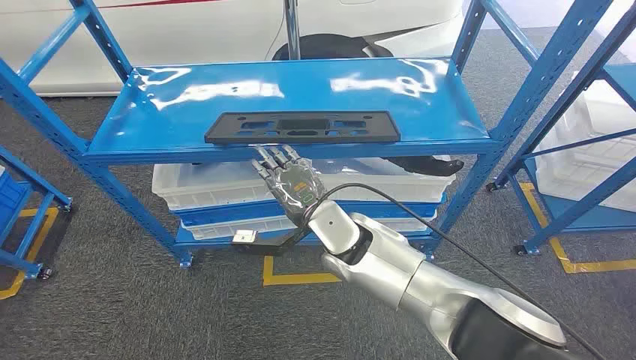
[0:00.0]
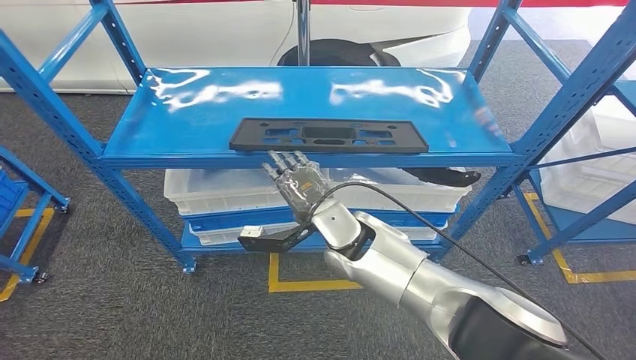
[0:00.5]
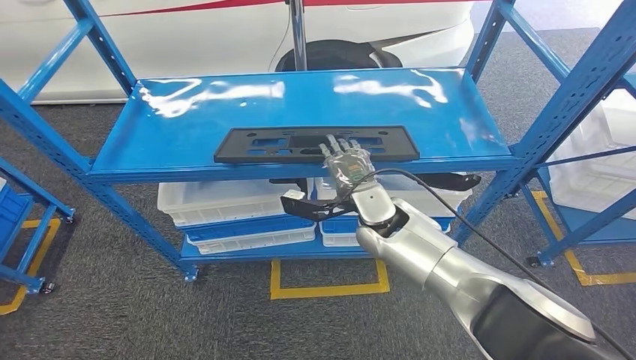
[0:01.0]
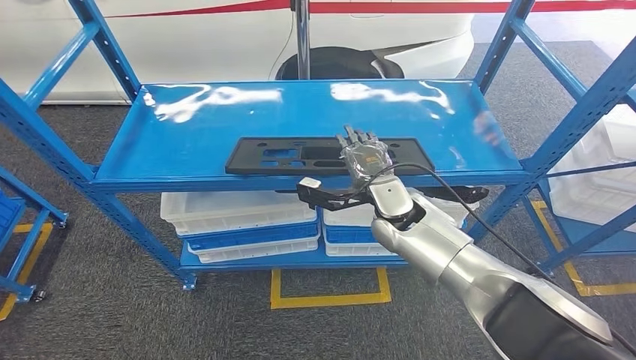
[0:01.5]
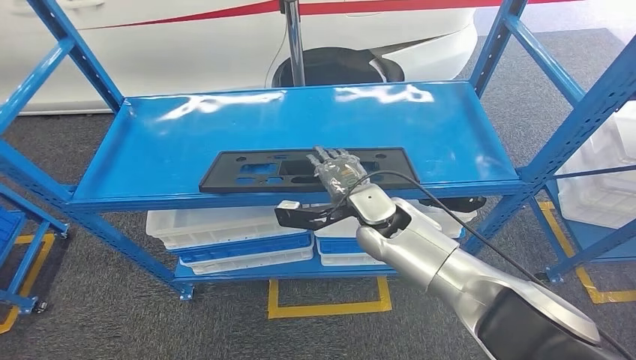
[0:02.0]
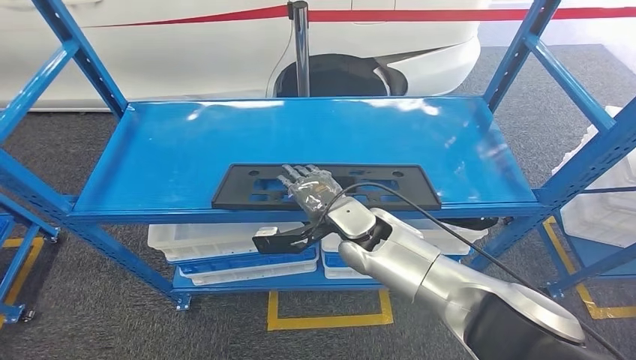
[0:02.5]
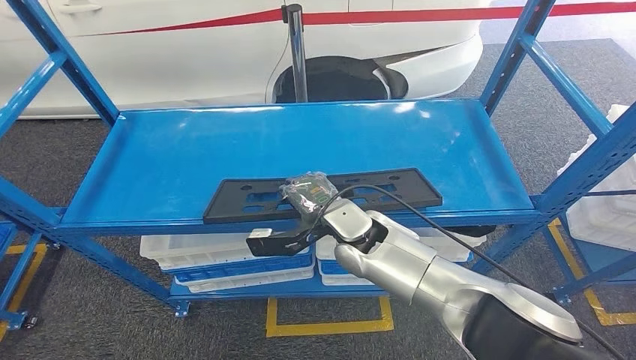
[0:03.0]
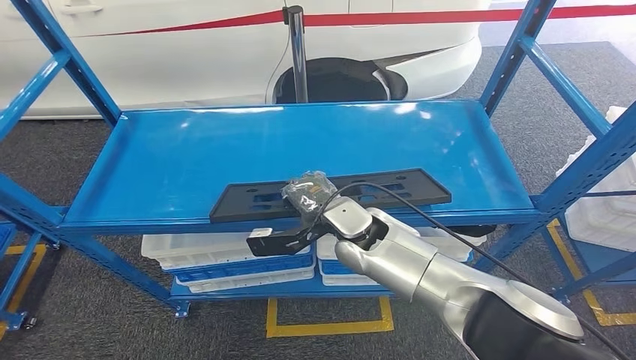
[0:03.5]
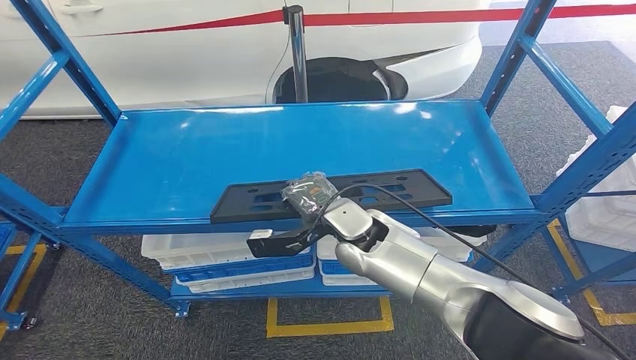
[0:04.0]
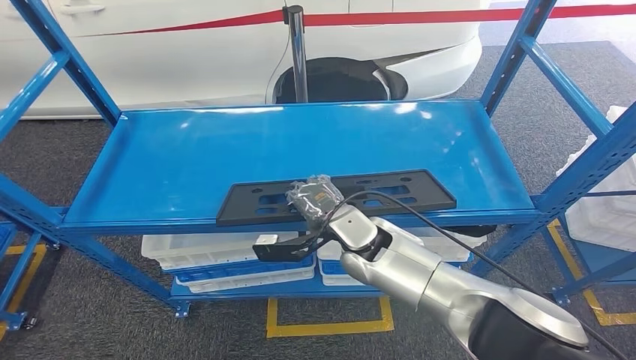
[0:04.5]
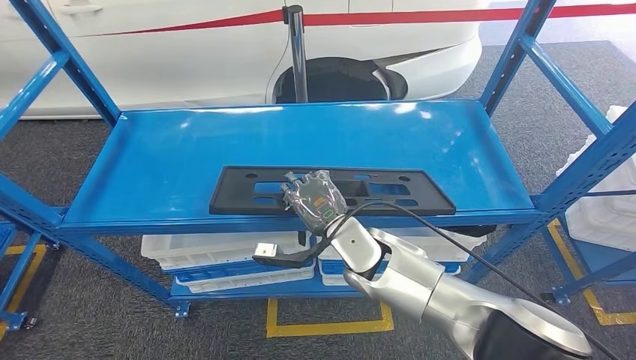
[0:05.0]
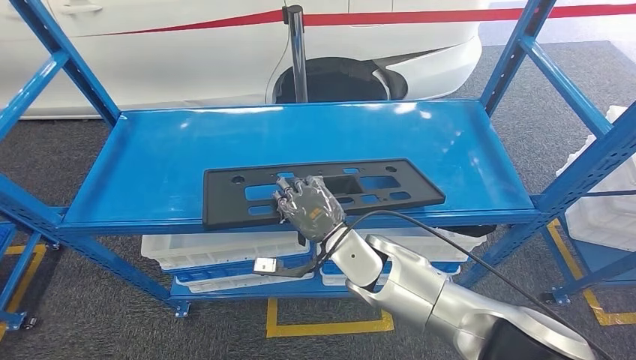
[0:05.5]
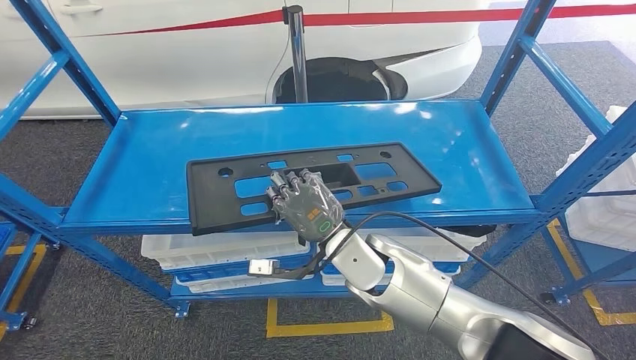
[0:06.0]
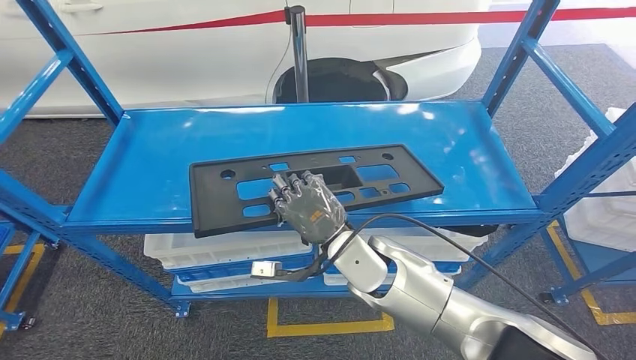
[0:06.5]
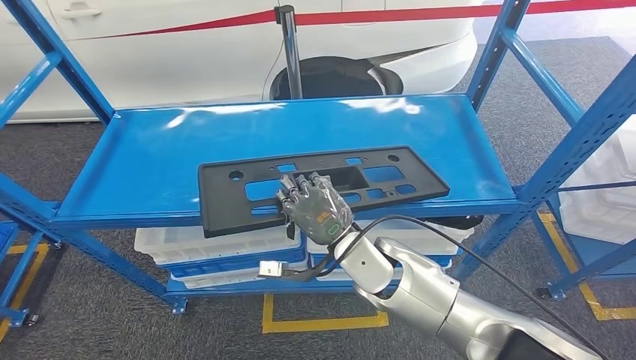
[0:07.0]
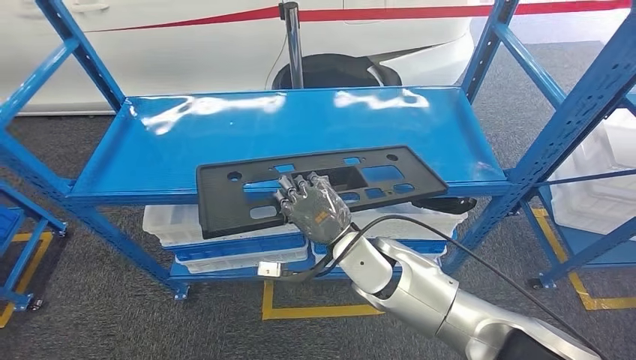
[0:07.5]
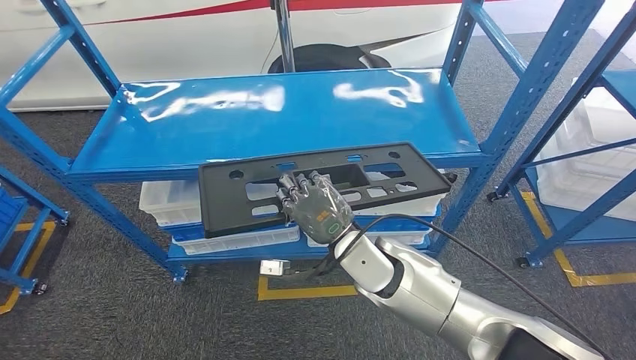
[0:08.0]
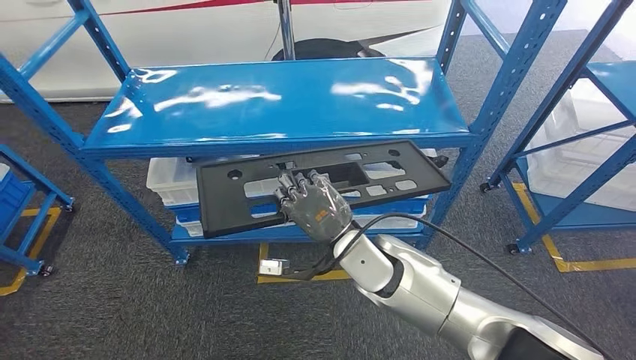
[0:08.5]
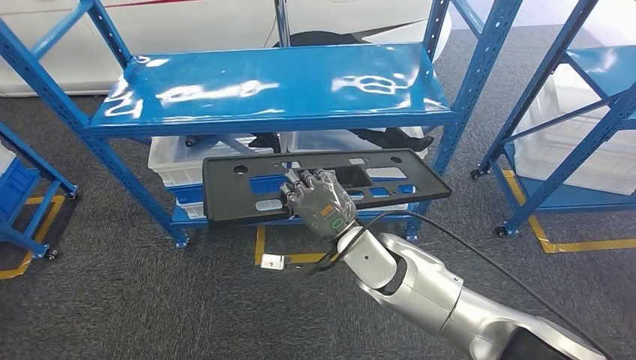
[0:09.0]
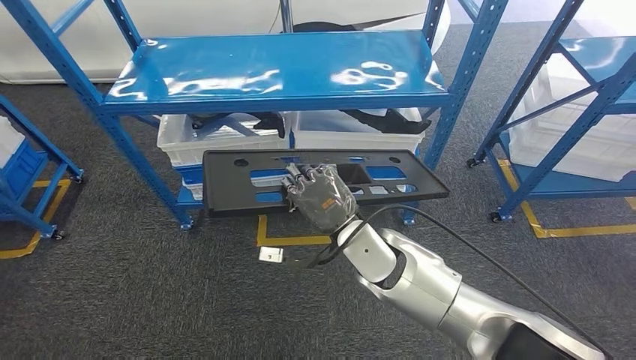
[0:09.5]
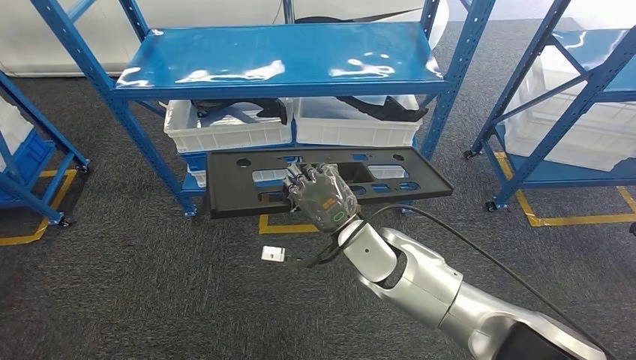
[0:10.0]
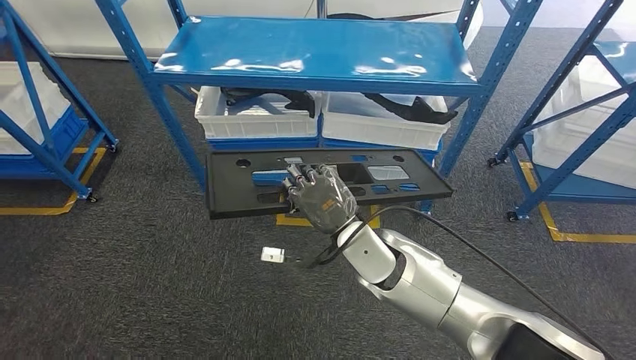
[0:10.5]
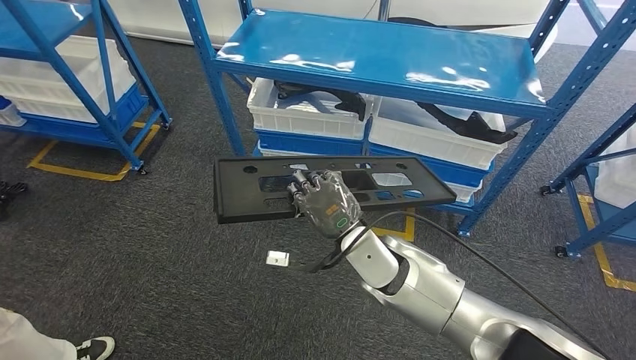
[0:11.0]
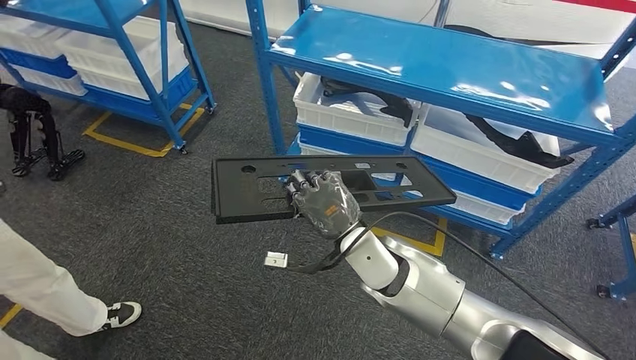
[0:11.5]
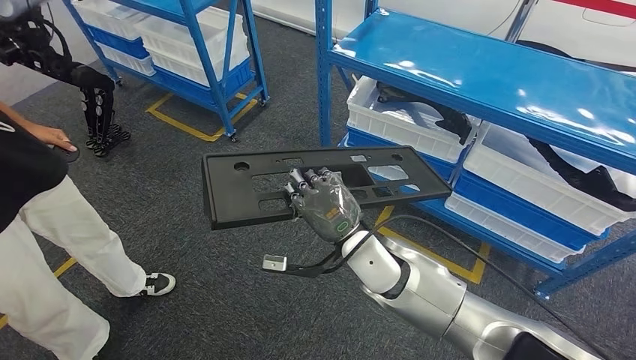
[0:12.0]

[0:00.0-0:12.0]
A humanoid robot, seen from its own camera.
Step, 0:00.0 to 0:06.5: Pick up the large parts from the shelf.

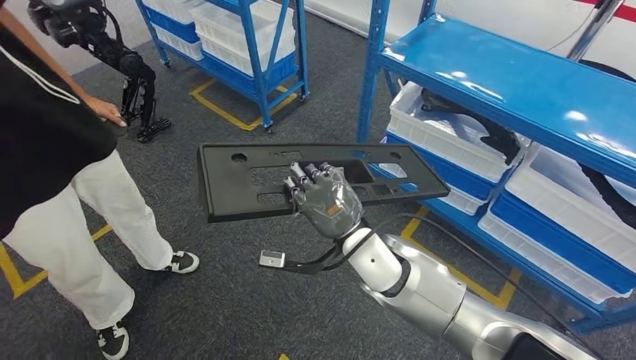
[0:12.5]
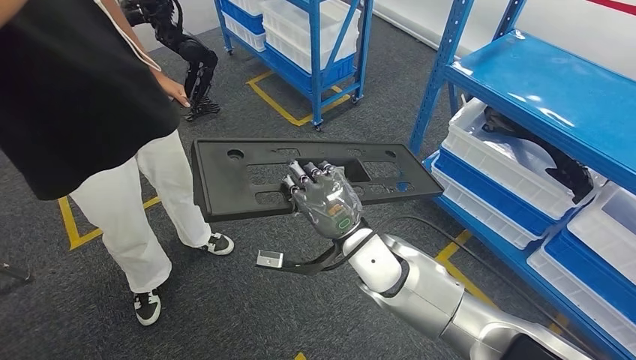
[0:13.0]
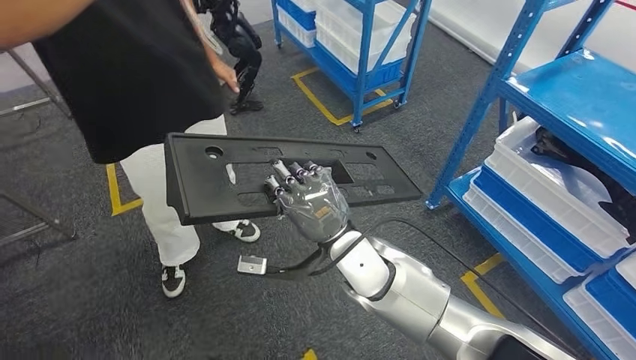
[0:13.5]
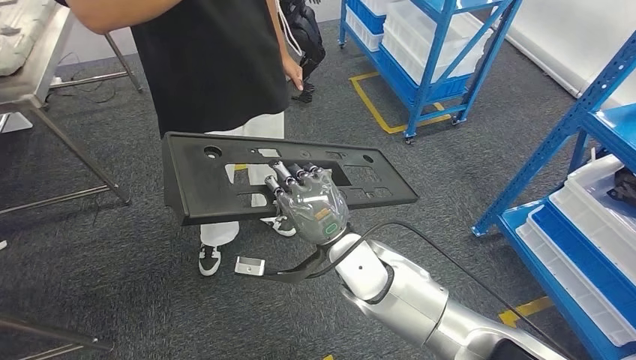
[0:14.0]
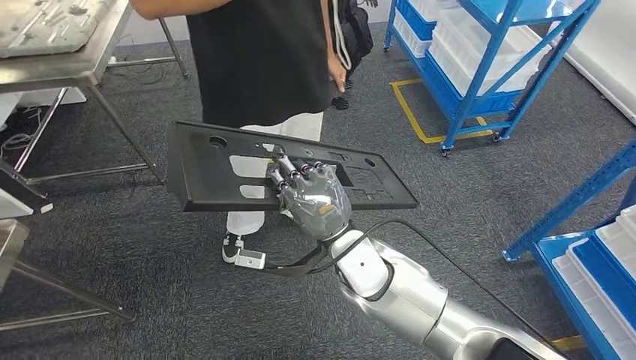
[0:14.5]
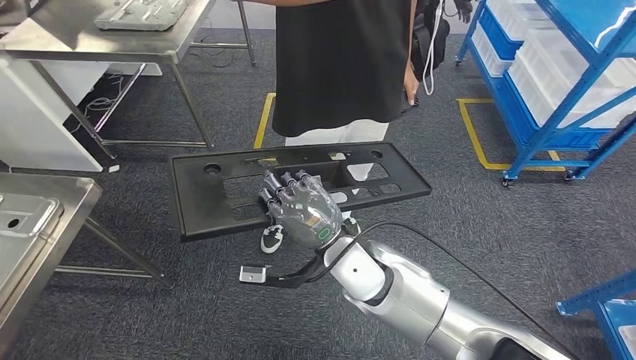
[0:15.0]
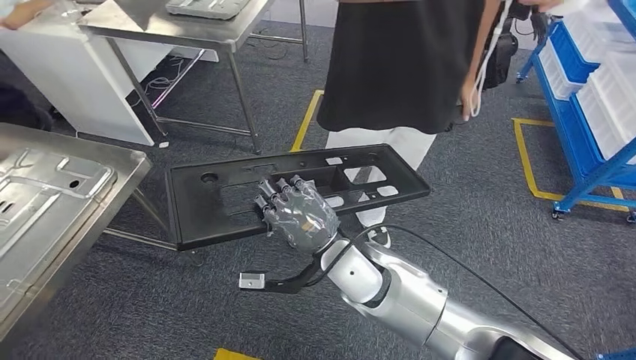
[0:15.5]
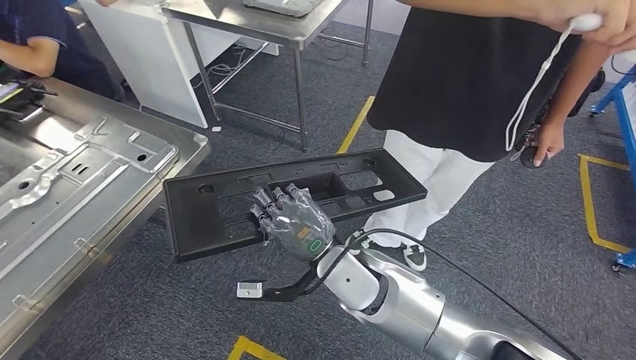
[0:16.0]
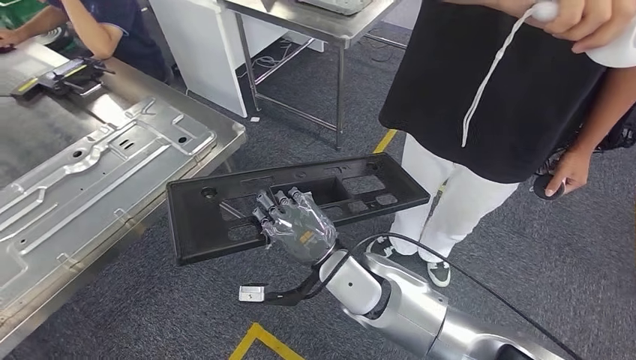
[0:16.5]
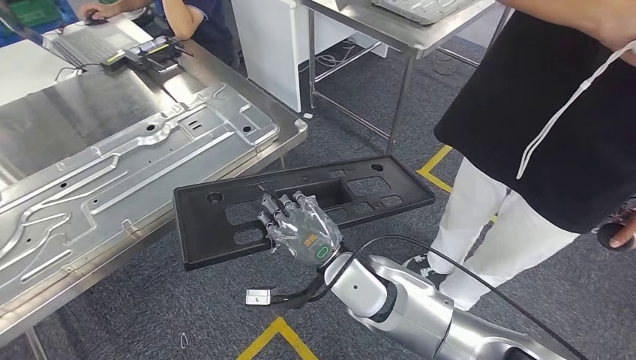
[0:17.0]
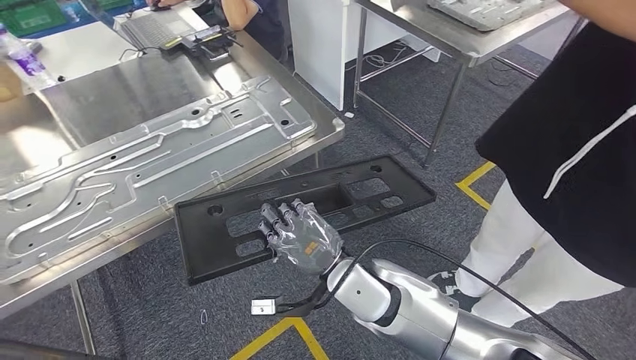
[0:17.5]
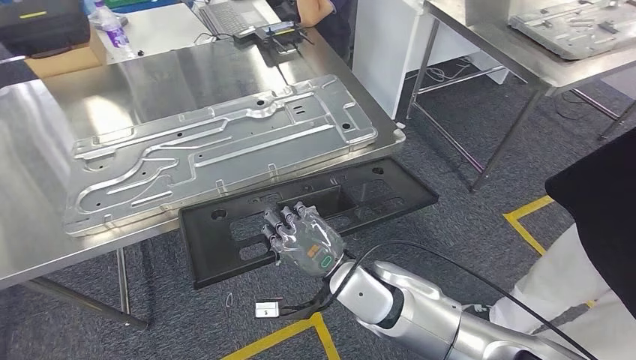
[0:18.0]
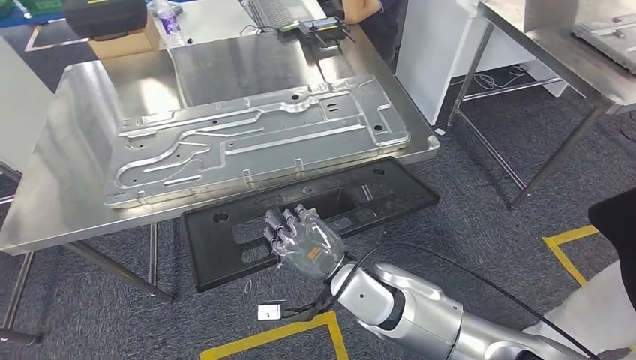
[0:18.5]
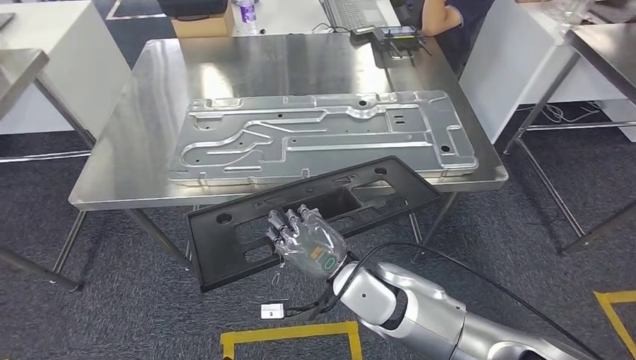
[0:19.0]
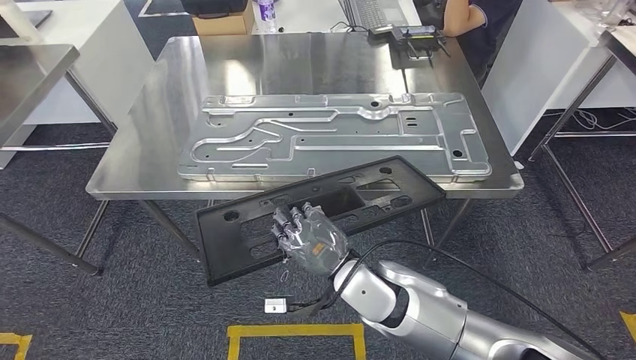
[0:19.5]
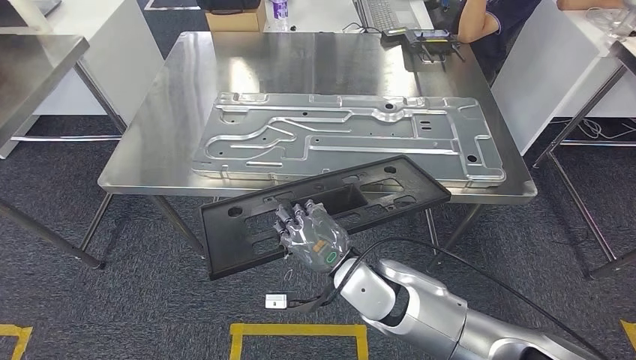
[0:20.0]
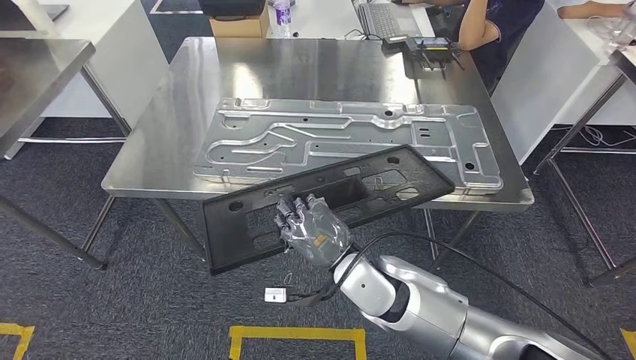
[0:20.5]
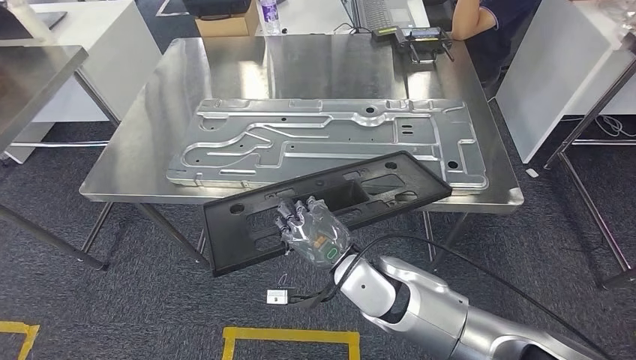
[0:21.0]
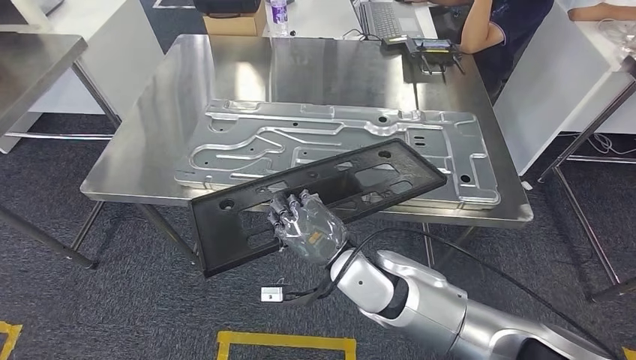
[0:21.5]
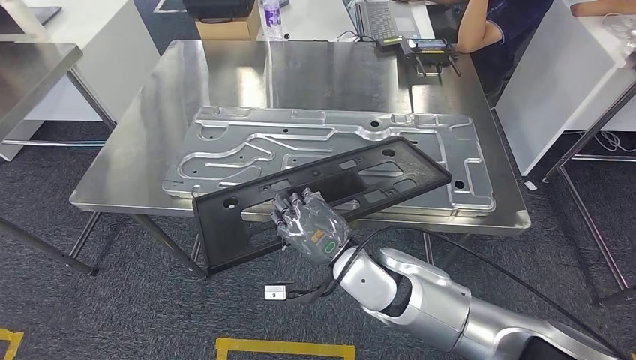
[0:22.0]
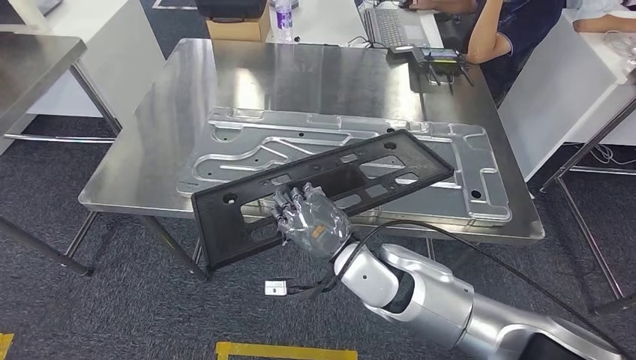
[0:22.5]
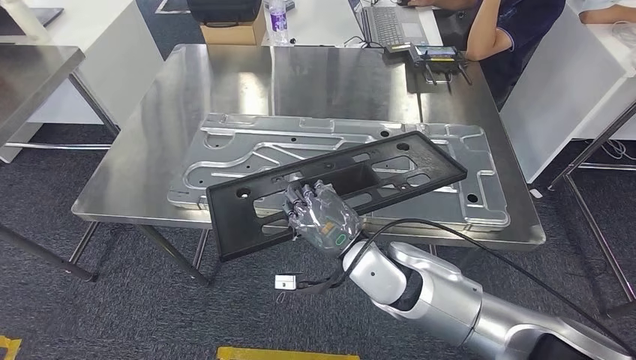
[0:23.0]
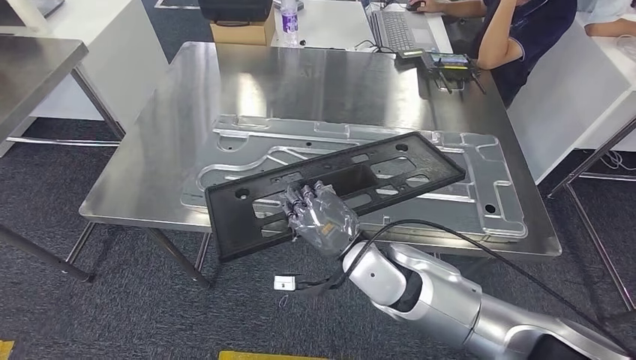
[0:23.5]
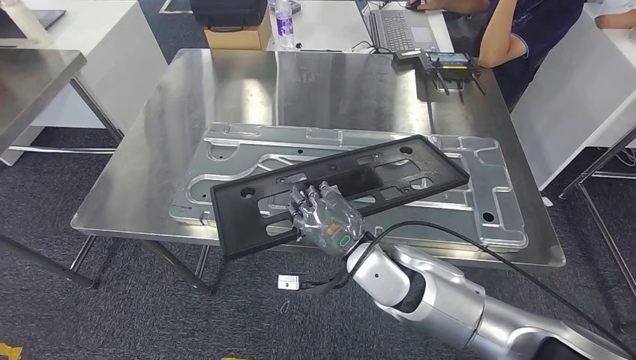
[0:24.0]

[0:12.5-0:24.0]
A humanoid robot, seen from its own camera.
Step, 0:12.5 to 0:21.0: Move the large parts to the workbench.
